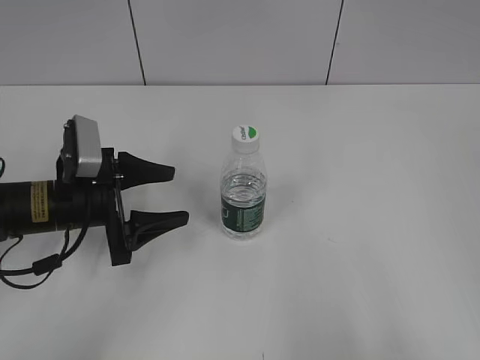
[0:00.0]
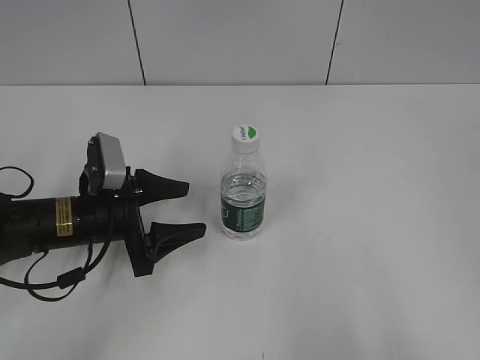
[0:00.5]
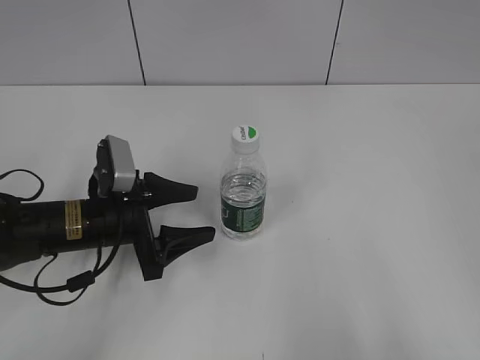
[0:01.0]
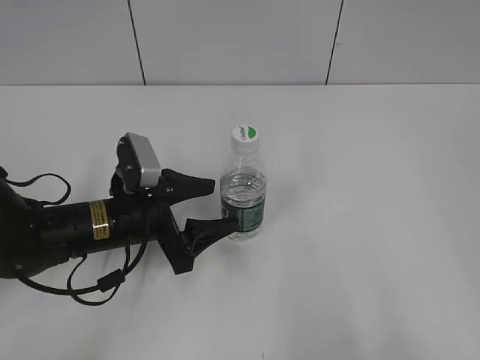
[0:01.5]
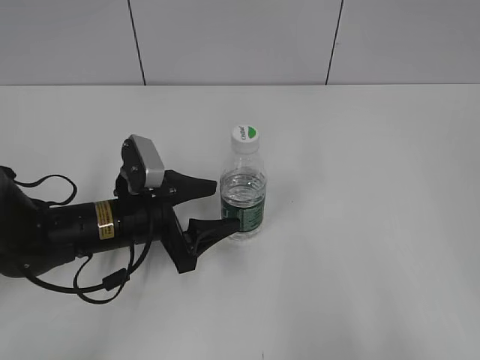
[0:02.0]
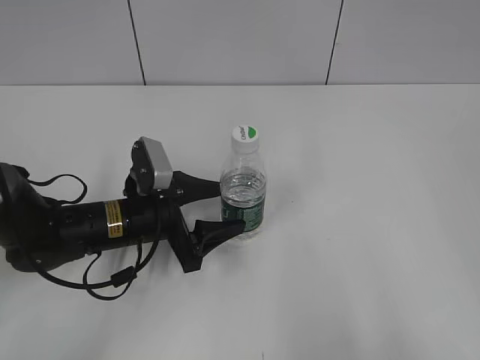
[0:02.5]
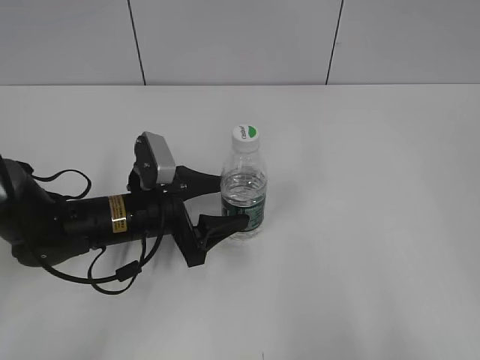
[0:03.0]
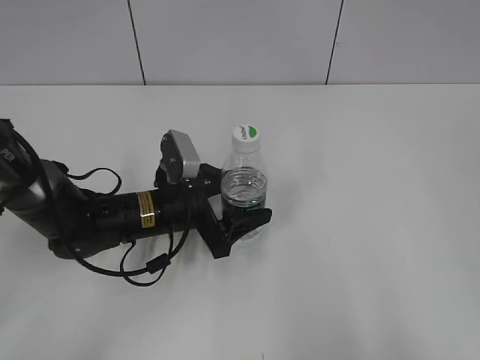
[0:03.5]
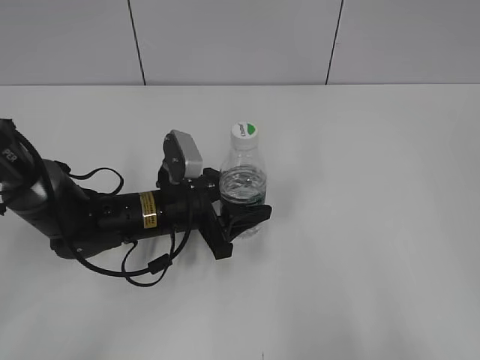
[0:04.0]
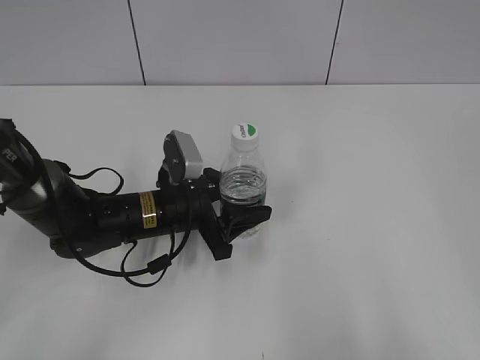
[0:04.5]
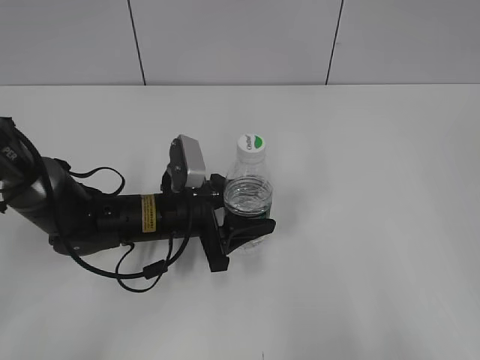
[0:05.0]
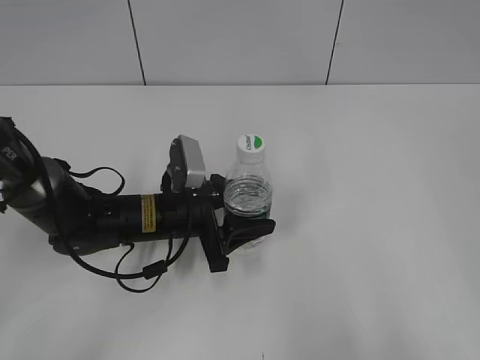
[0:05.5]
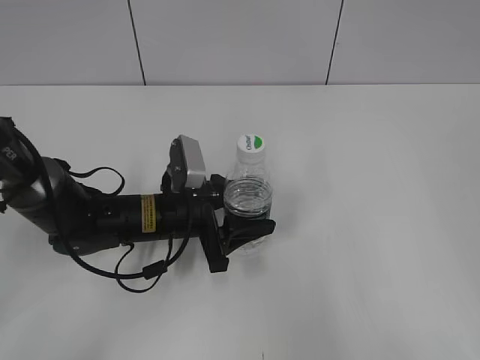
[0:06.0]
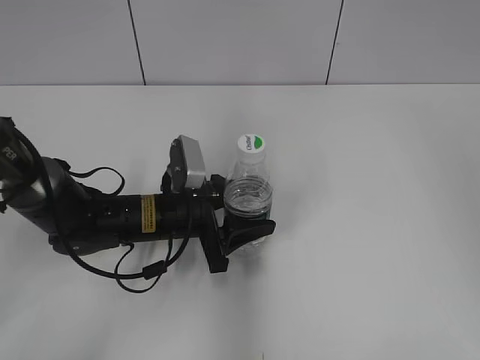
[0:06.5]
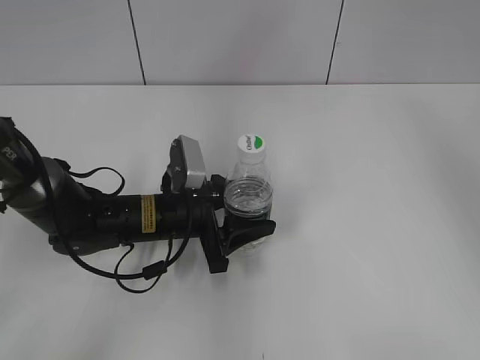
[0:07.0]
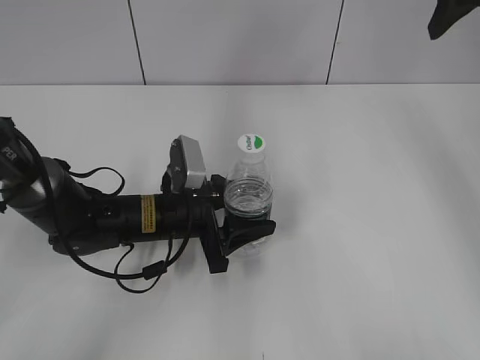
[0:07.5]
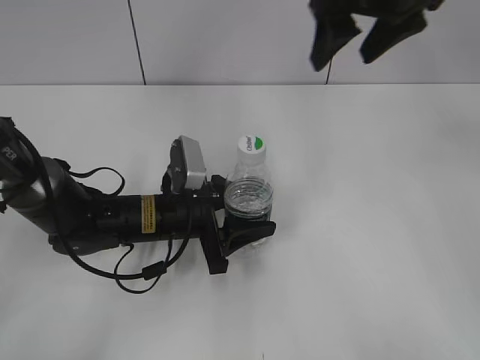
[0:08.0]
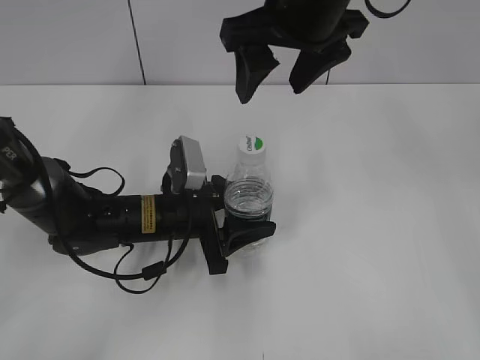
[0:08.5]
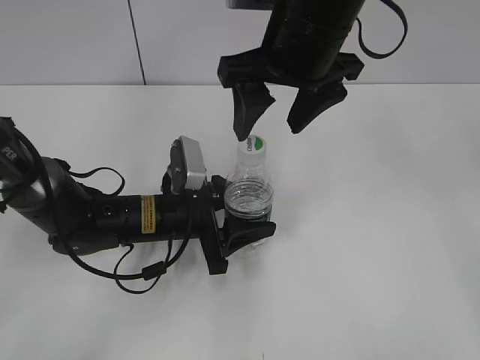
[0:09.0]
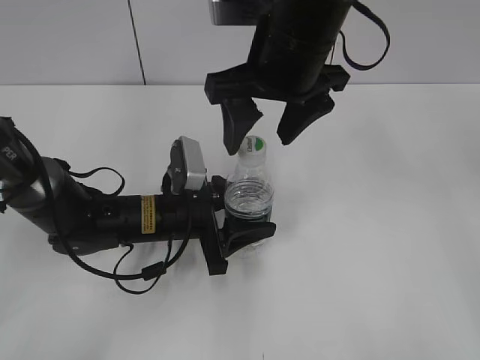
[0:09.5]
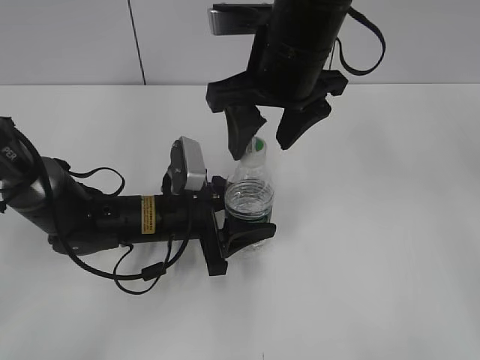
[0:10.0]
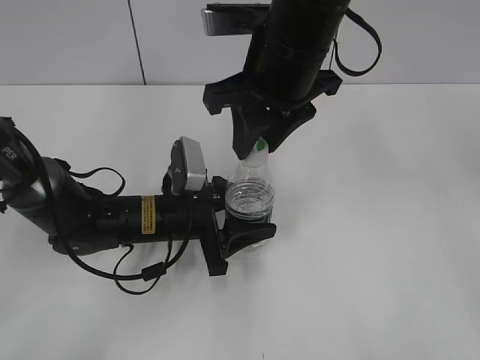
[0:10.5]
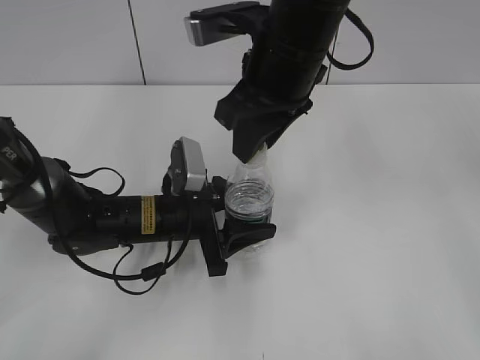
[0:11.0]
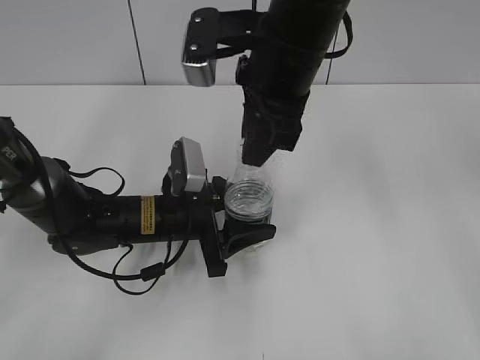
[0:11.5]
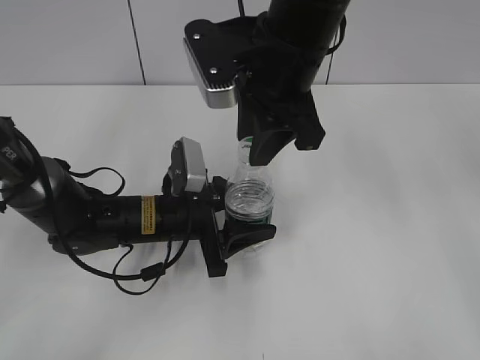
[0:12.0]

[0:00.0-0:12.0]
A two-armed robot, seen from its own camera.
Step, 0:00.0 to 0:06.5: Grasp the bottle and move it to the center of the table with the left gripper.
0:00.0 to 0:02.0: The left gripper moves to the right, roughly 5 cm.
0:02.0 to 0:04.0: The left gripper shifts by some 5 cm, and closes its fingers.
0:04.0 to 0:06.0: The grippers make only small movements.
0:06.0 to 0:08.0: The right gripper shifts approximately 40 cm forward and to the left, and opens up.
0:08.0 to 0:10.0: The right gripper is displaced to the left, downward and backward by about 10 cm.
0:10.0 to 0:12.0: The right gripper closes up.

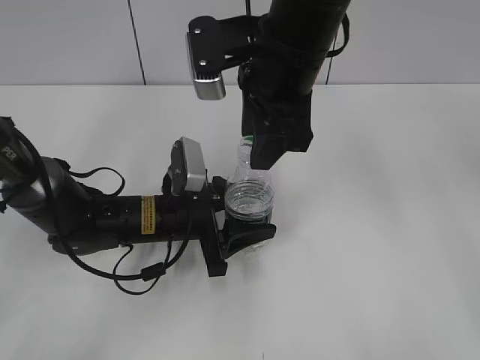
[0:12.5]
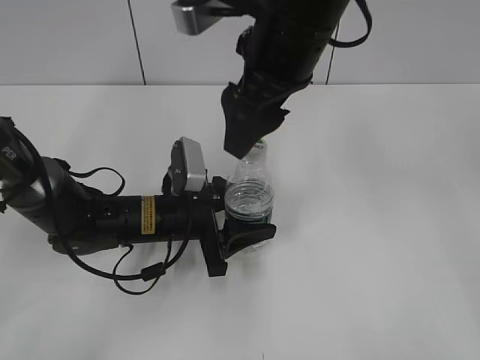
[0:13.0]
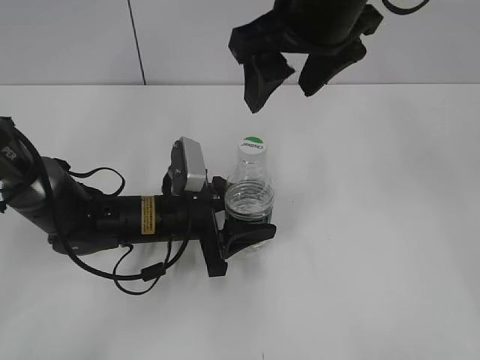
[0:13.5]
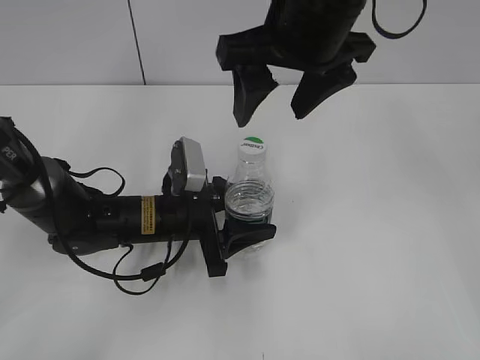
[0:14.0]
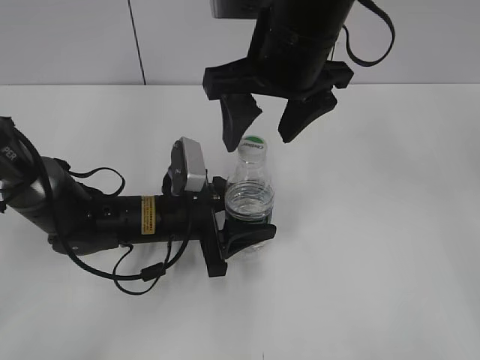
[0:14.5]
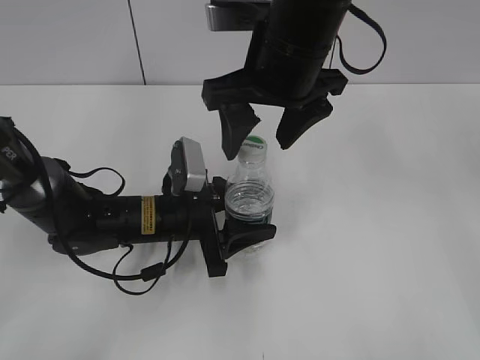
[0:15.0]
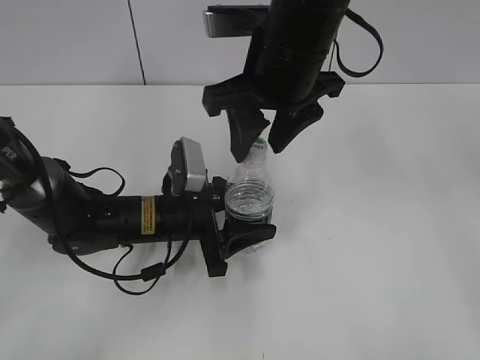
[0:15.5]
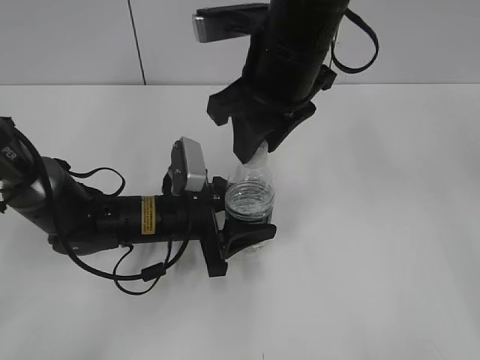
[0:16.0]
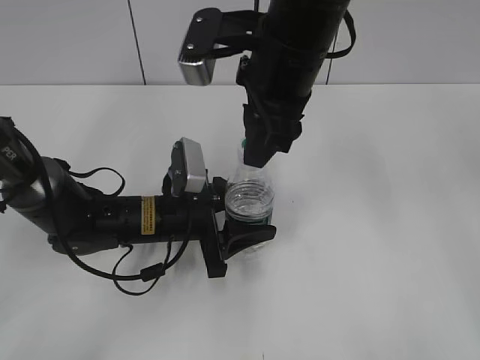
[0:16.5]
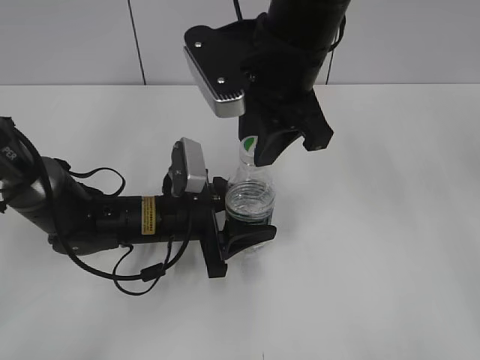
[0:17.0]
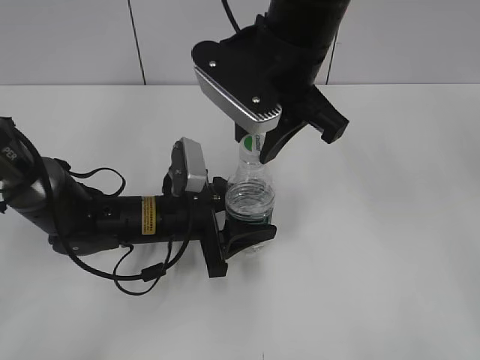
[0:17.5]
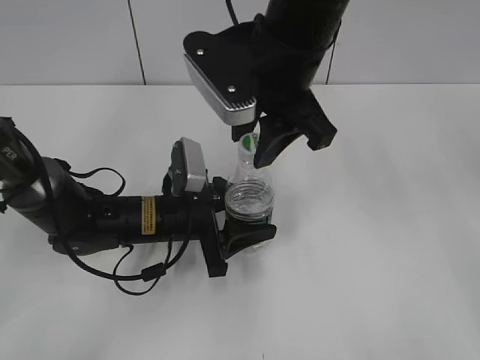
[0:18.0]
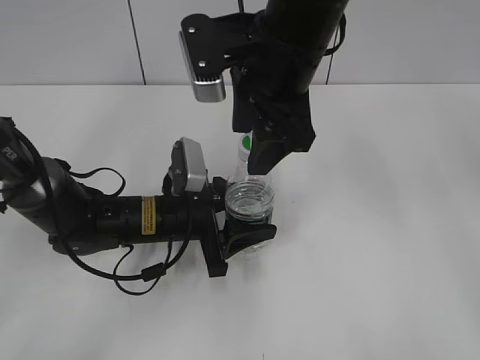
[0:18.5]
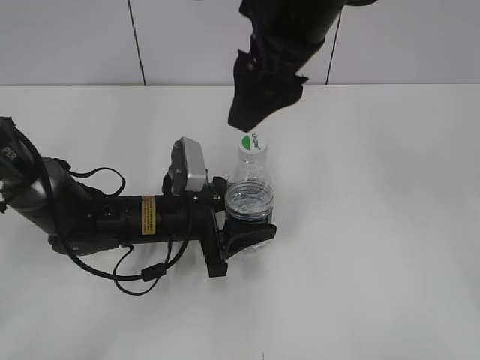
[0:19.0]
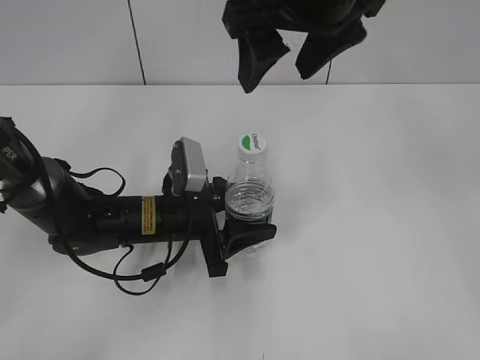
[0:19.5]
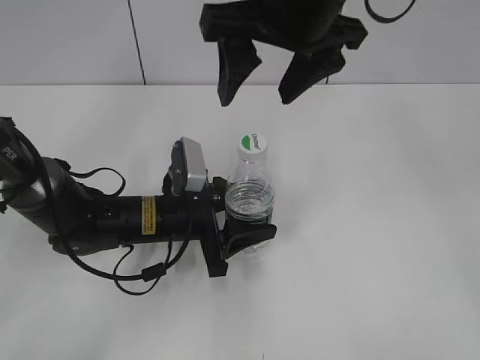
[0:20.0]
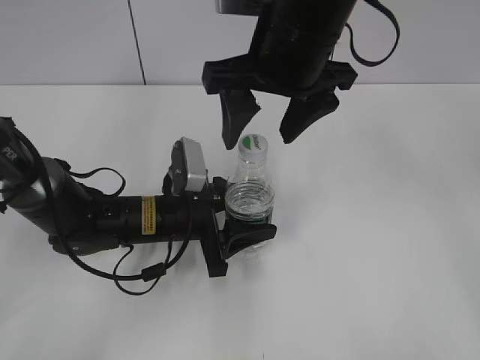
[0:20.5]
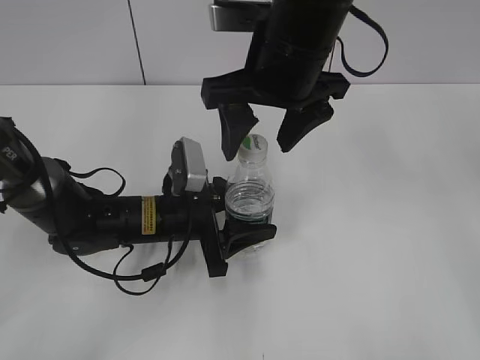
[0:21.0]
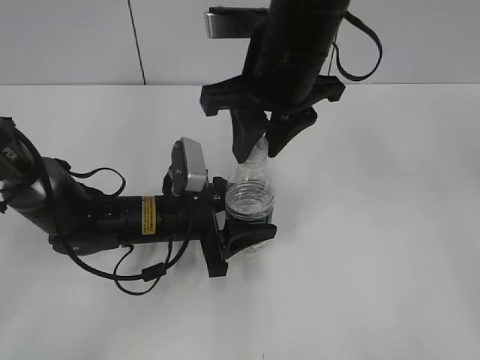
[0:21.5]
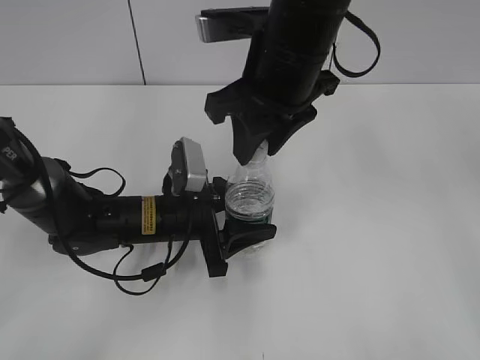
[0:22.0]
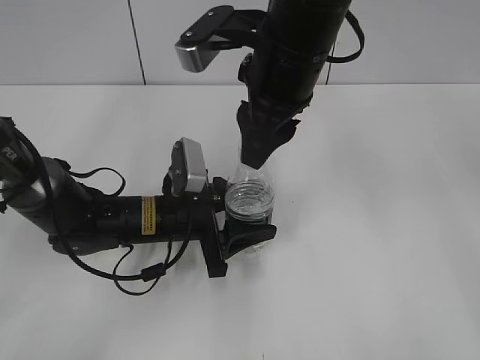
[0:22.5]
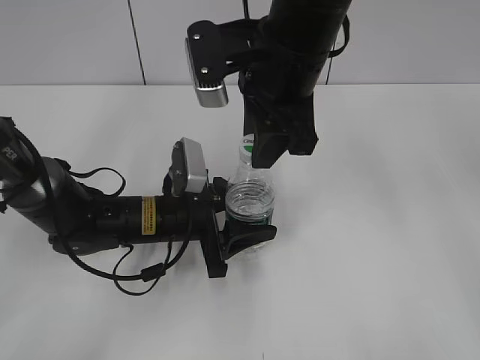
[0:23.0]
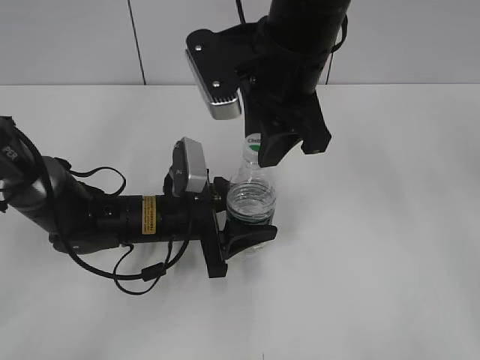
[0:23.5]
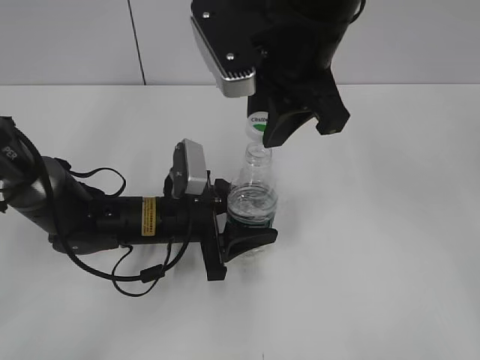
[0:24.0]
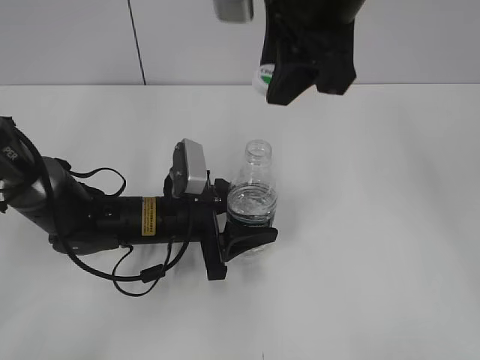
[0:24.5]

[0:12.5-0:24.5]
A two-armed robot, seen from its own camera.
Step, 0:12.5 to 0:24.0: Unscrew the bottle cap with the right gripper while holding the bottle with the left gripper.
0:12.5 to 0:14.5: The right gripper opens.
0:14.5 to 0:16.5: The right gripper closes.
0:16.5 to 0:18.5: The right gripper opens up.
0:20.5 to 0:22.5: The right gripper closes up.
0:22.5 to 0:24.5: The right gripper is displaced upward by roughly 10 cm.

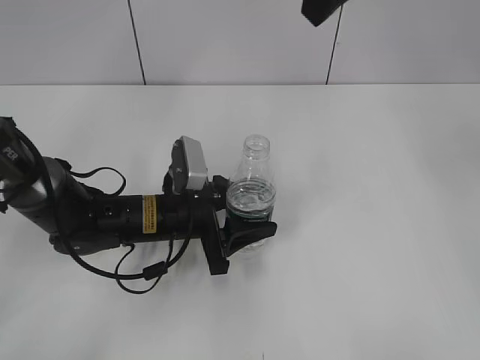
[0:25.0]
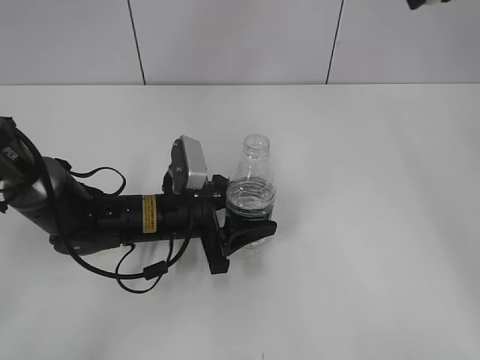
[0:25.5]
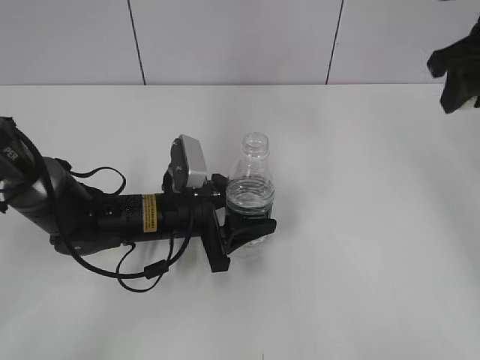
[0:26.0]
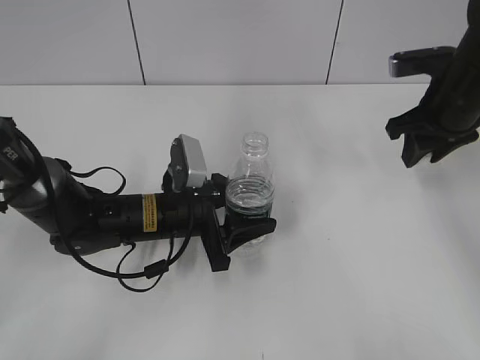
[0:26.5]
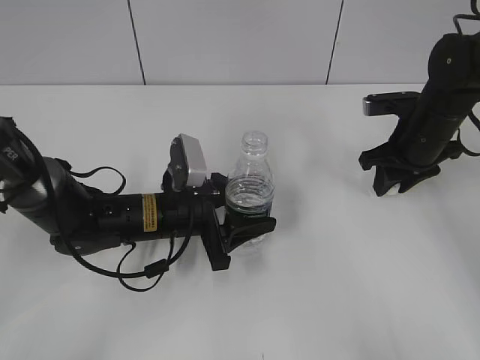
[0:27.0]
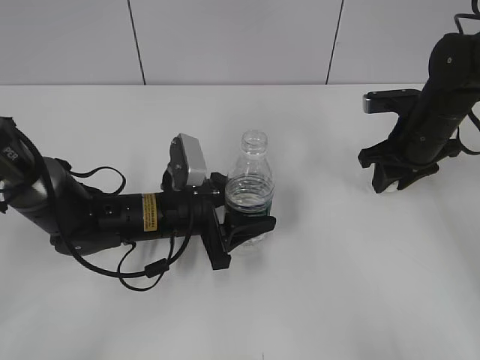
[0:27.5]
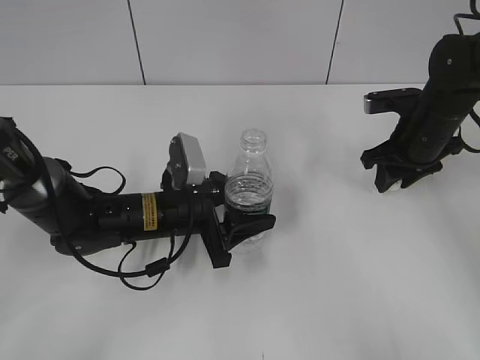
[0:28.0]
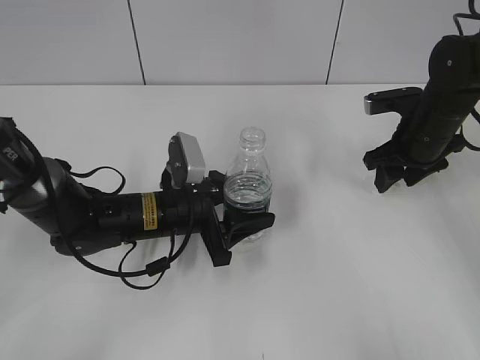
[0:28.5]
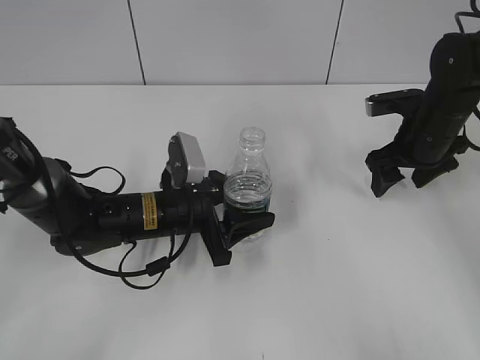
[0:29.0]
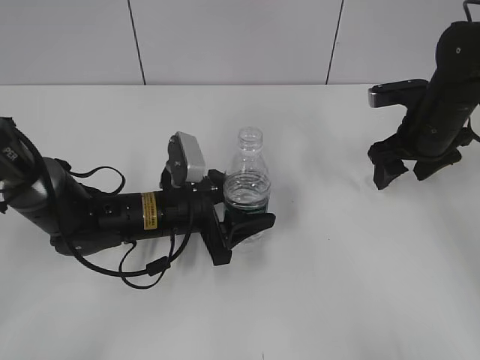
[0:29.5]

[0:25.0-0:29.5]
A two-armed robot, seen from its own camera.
Step, 0:25.0 to 0:28.5: Place the bottle cap on the table with the right gripper.
0:25.0 to 0:27.0: The right gripper travels downward and to the right by about 30 cm.
0:27.0 to 0:29.5: The right gripper opens.
